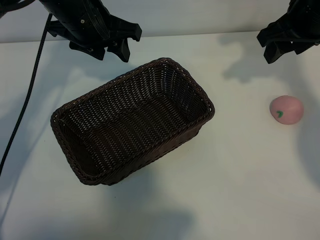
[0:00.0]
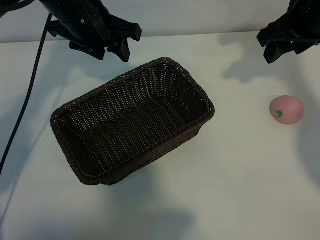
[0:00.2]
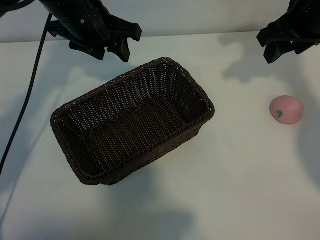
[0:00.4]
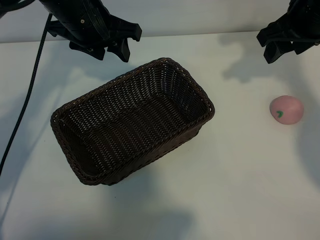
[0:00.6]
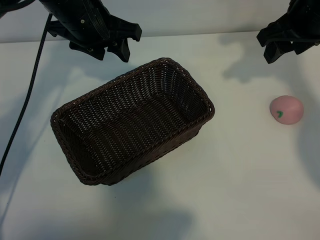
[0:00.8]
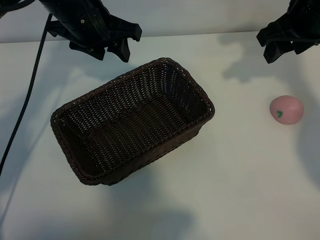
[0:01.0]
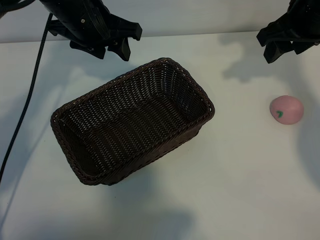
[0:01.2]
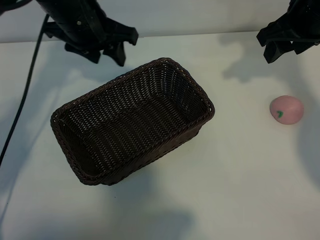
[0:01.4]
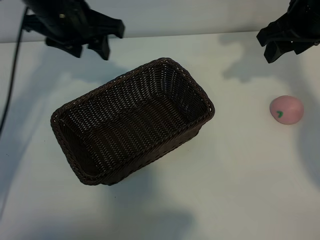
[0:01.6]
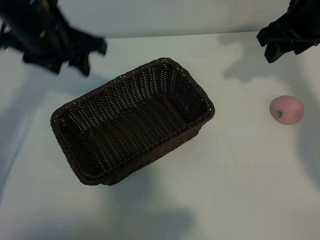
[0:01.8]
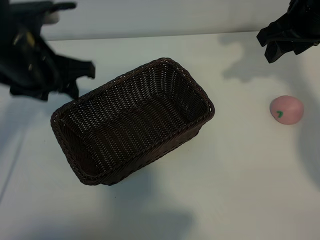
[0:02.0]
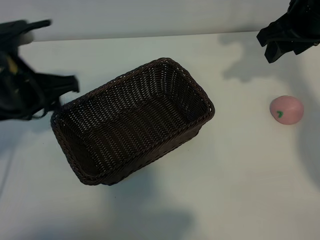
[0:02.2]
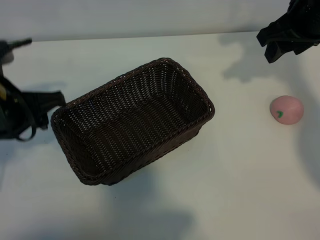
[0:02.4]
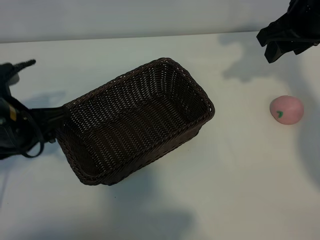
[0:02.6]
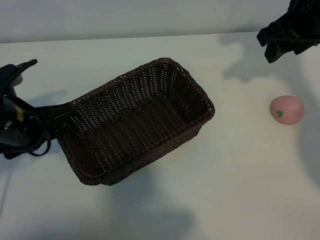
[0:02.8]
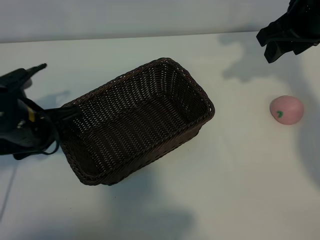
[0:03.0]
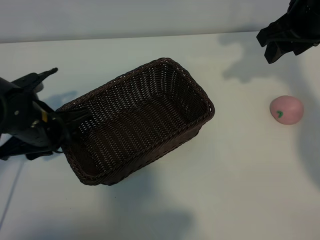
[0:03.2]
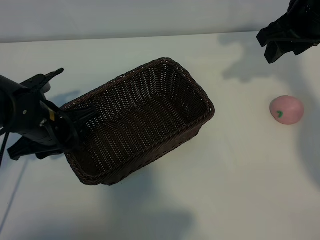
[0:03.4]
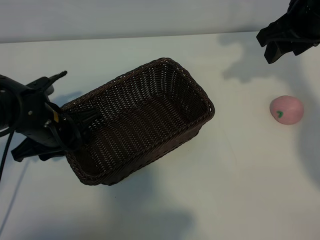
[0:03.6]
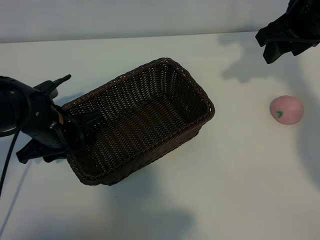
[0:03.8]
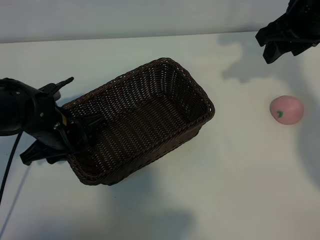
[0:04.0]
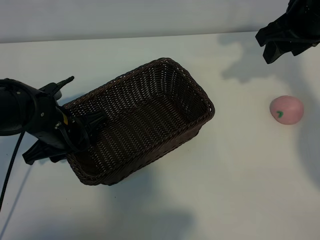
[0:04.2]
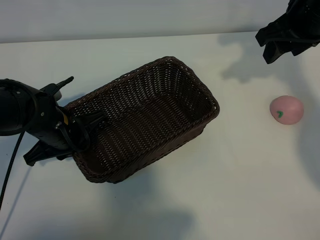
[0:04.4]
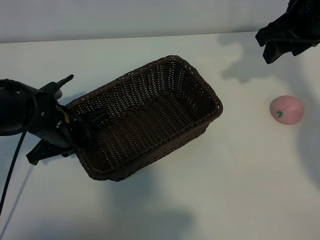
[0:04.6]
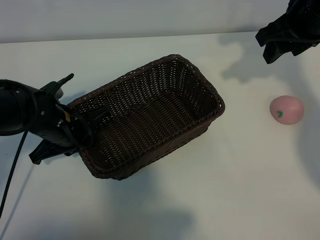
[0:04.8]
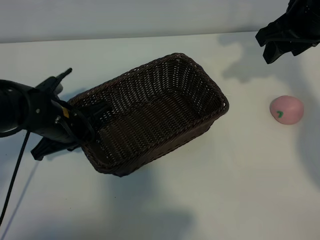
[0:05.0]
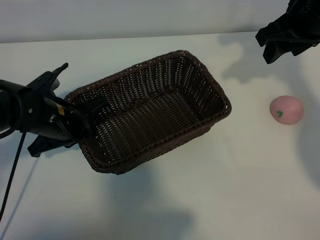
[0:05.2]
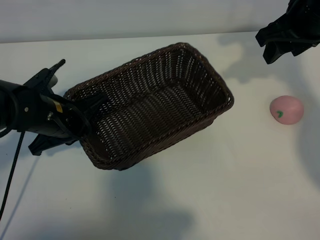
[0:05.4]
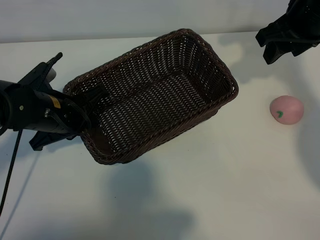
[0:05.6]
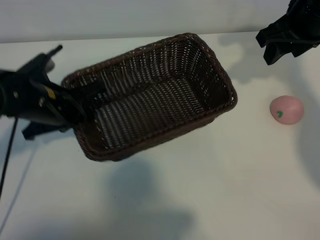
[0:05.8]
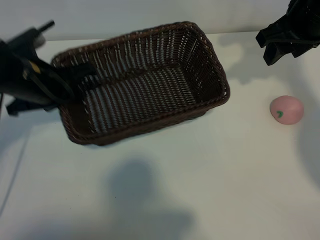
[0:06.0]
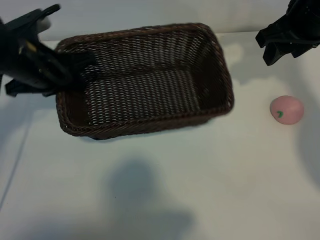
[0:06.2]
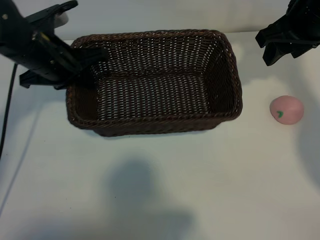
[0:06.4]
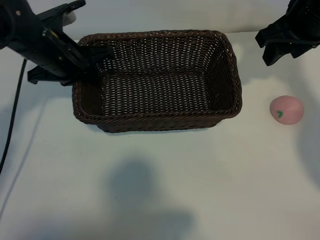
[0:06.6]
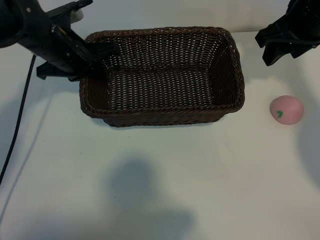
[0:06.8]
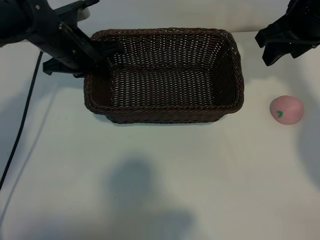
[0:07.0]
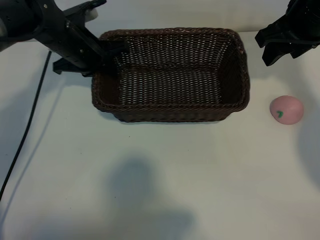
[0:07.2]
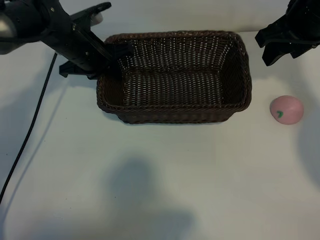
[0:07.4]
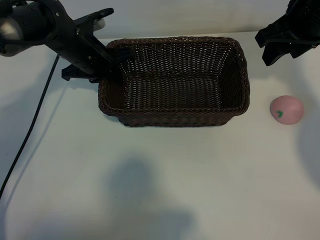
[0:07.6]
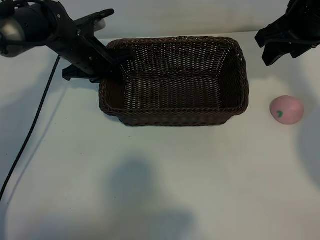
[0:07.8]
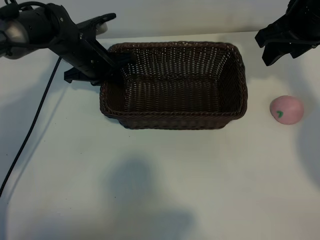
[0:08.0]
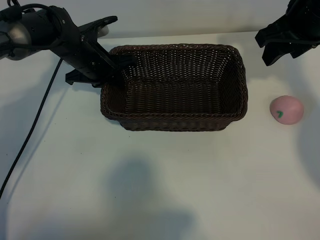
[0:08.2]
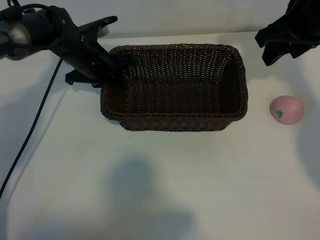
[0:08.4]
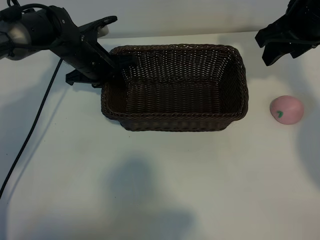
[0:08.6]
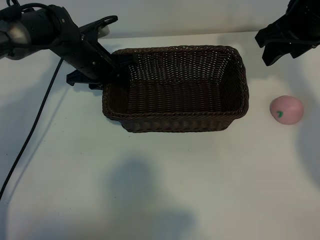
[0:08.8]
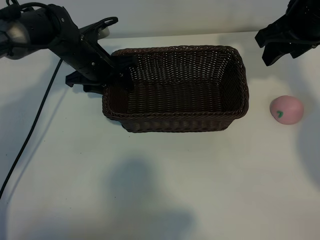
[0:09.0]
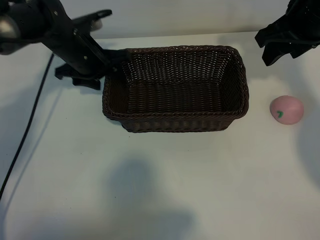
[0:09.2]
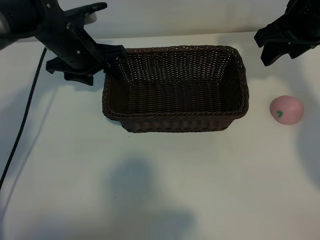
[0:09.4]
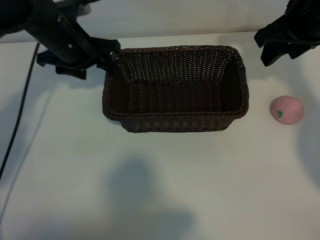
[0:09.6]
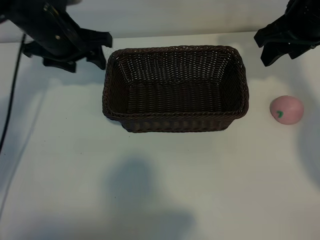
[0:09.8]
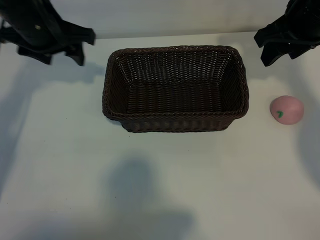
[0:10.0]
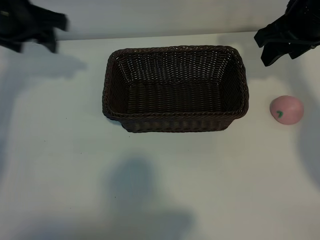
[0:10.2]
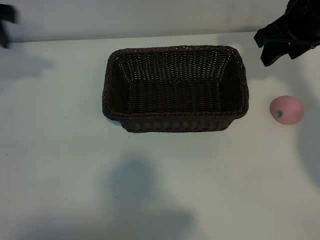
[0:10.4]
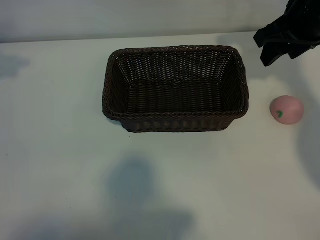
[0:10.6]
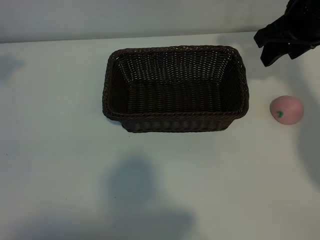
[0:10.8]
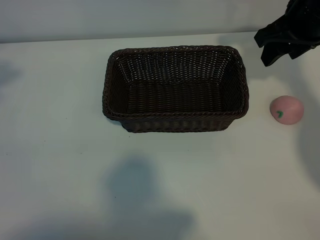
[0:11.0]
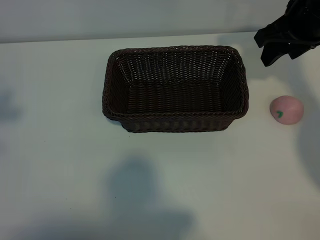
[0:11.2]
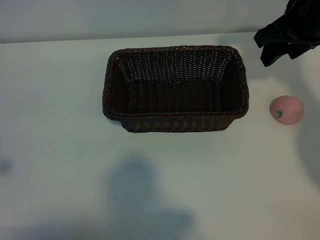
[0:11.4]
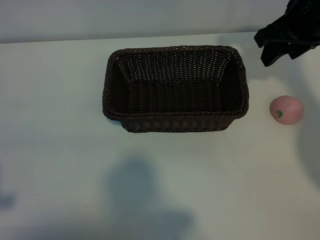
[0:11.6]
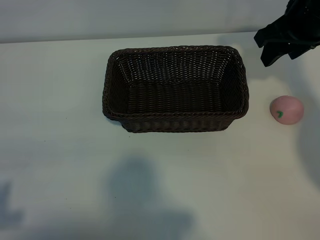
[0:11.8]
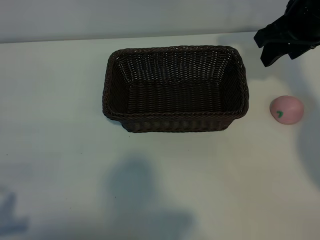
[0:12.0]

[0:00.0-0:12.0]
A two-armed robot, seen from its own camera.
Task of the whole recording: pick up the peach and put it into the basket.
Step, 0:01.4 to 0:04.6: Grasp the basket with left gripper.
Step, 0:05.0 to 0:09.4: Place the basket in the center of view with left gripper.

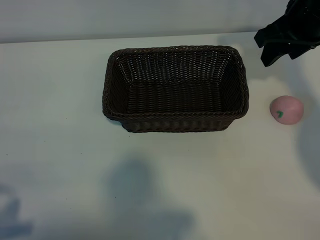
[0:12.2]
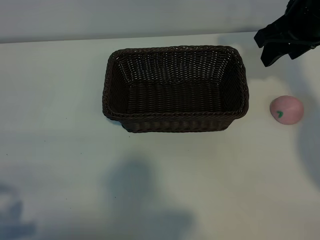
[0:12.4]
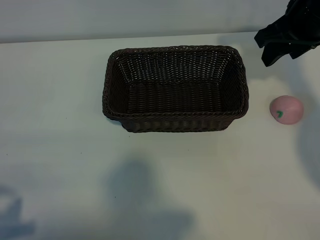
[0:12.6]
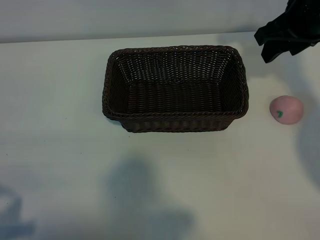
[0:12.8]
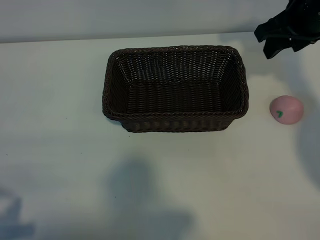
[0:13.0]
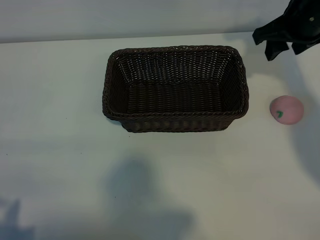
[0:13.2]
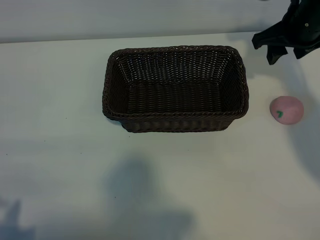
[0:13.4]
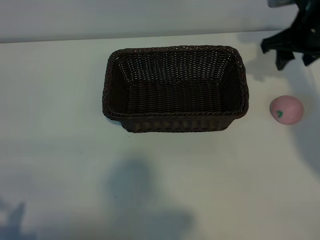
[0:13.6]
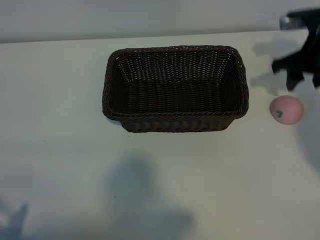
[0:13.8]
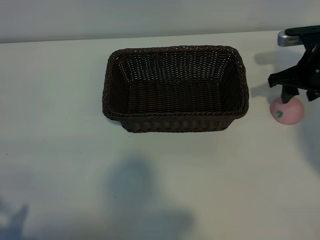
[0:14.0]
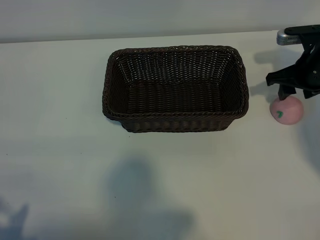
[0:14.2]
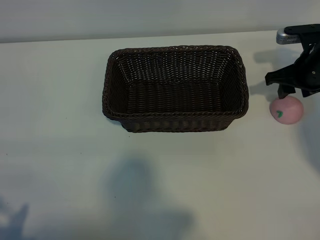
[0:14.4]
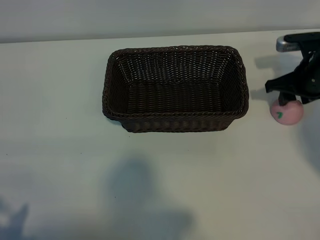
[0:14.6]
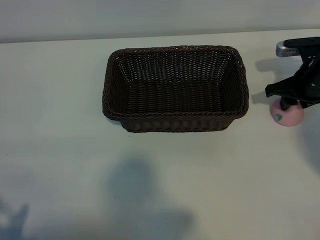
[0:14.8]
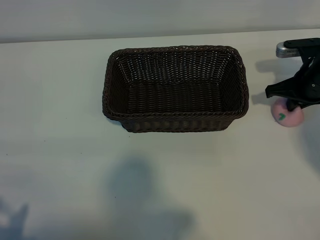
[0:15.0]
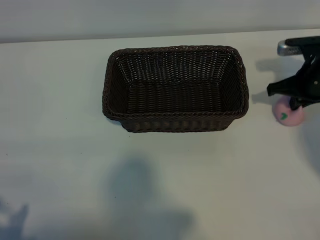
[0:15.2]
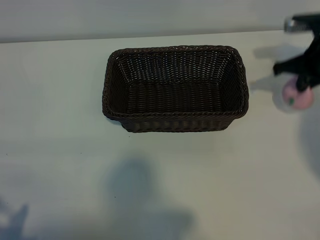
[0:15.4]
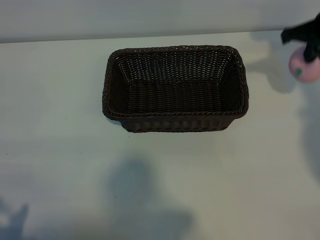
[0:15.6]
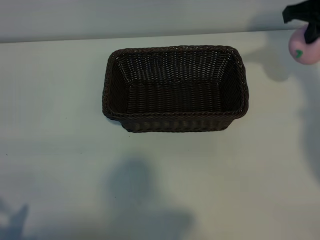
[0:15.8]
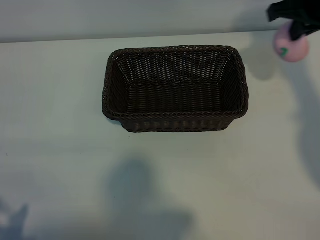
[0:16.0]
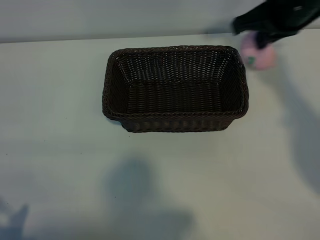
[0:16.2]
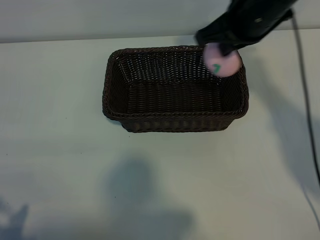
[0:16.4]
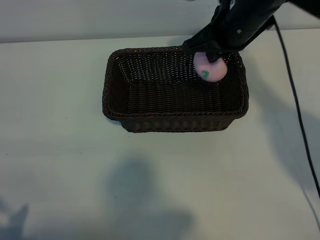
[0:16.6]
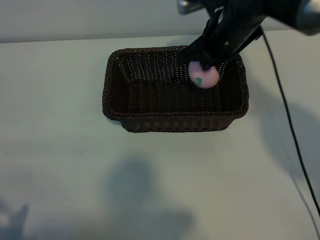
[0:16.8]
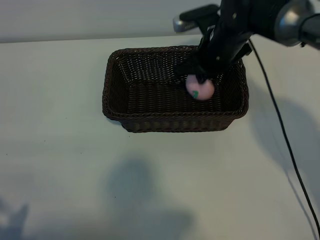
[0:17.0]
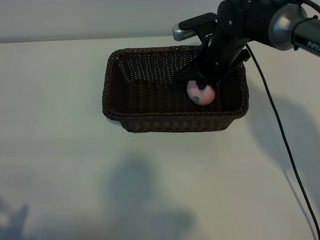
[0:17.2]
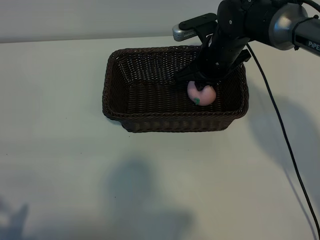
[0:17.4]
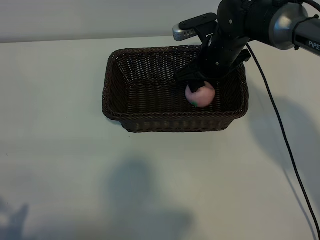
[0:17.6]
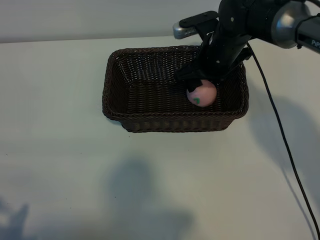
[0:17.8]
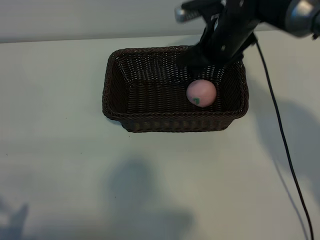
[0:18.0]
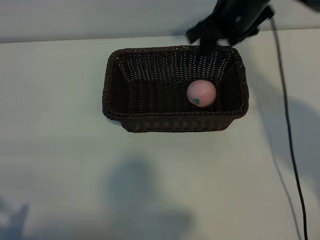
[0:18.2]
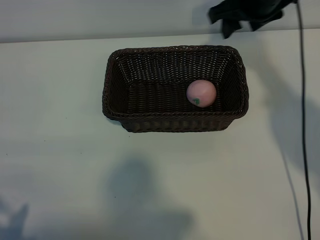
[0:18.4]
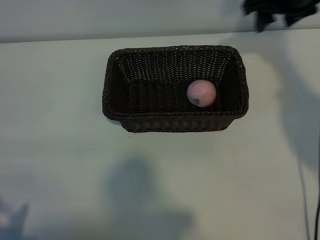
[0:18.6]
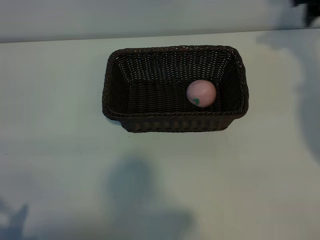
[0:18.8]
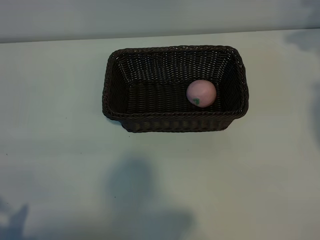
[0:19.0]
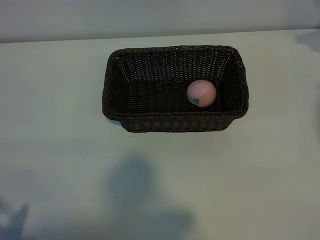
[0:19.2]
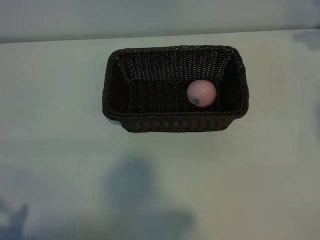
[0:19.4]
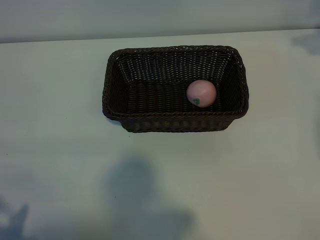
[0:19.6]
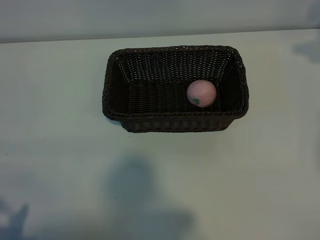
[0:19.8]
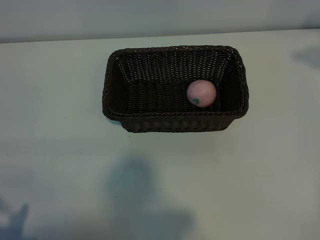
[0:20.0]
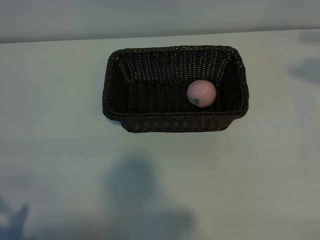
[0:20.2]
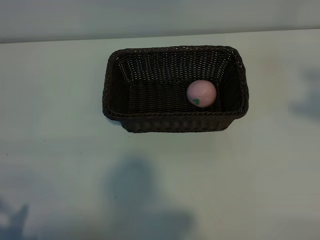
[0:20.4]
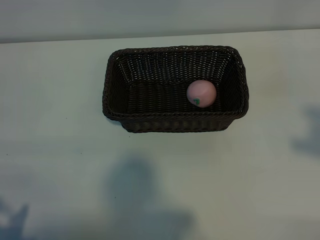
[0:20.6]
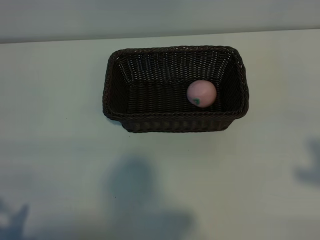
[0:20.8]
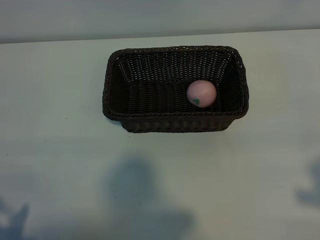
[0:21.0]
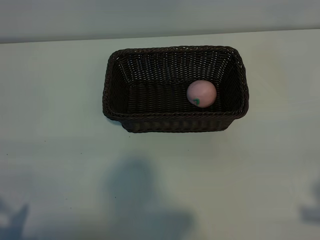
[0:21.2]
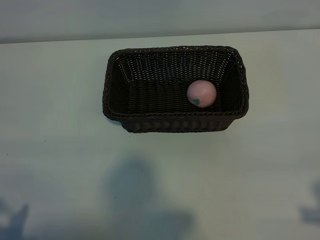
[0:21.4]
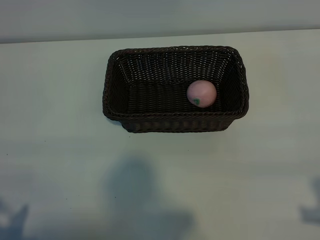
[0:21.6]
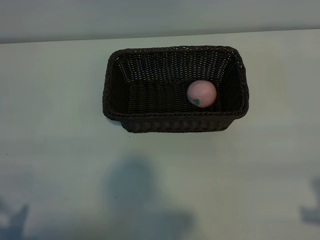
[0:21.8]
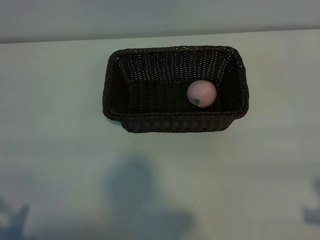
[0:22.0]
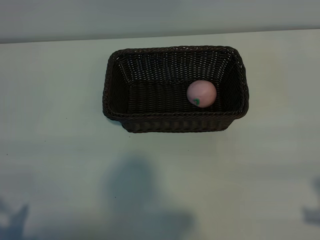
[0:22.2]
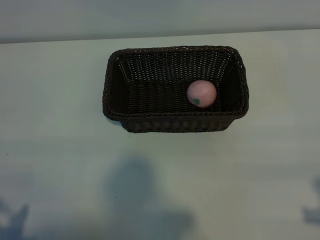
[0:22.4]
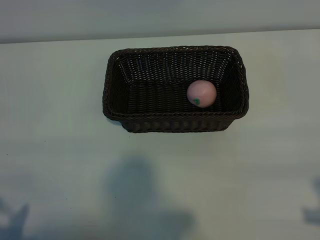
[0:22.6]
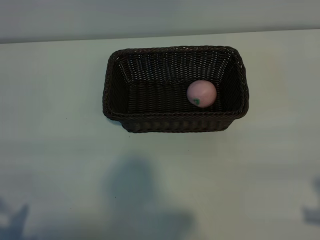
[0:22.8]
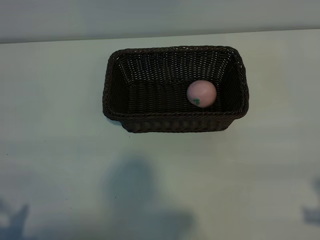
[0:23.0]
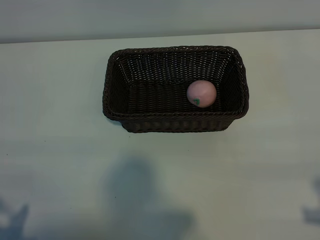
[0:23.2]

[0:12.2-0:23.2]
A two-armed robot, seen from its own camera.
Task of the whole recording: pick up the peach and put it into the basket.
Step, 0:12.2 to 0:15.0: Grasp the peach with right gripper.
Step, 0:15.4 to 0:17.8: Place the peach in the basket with right gripper.
